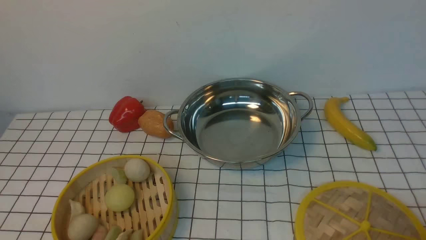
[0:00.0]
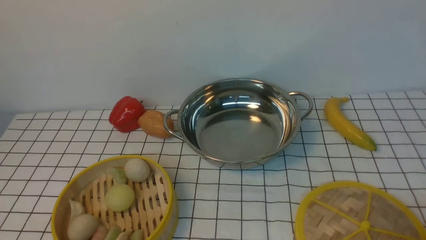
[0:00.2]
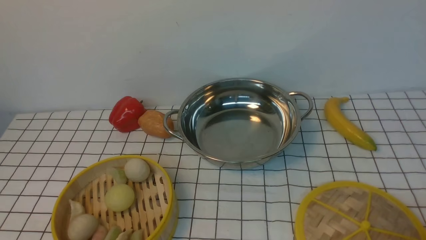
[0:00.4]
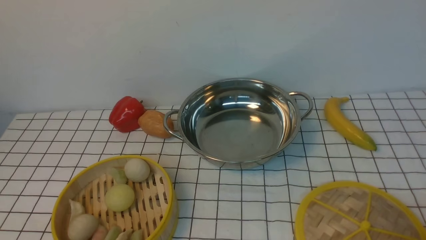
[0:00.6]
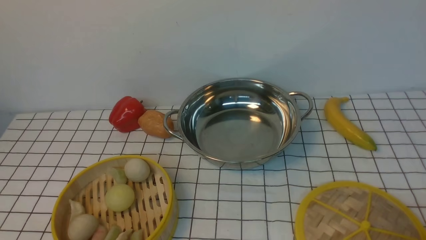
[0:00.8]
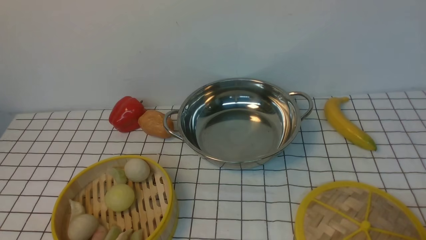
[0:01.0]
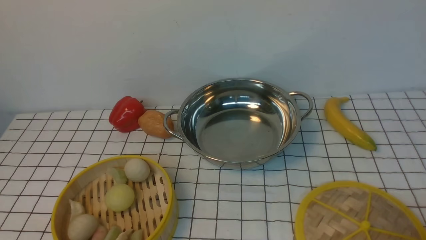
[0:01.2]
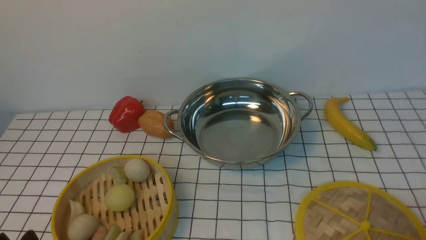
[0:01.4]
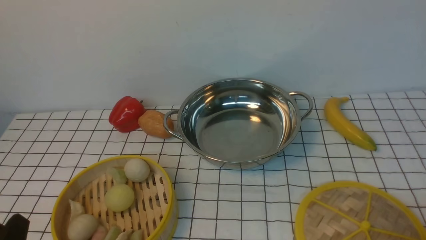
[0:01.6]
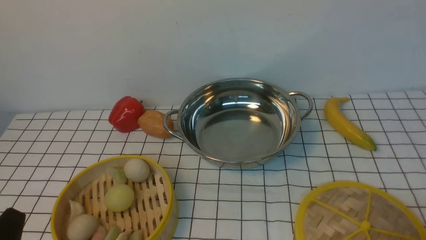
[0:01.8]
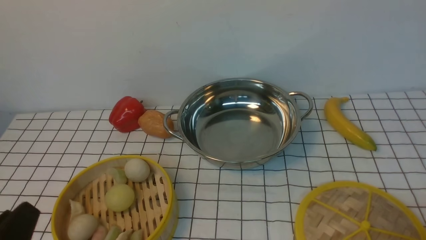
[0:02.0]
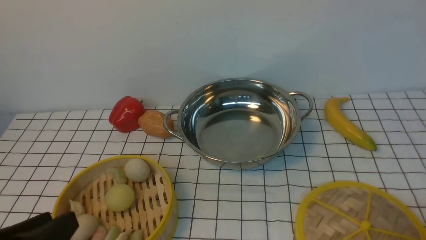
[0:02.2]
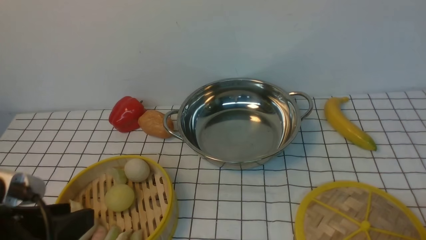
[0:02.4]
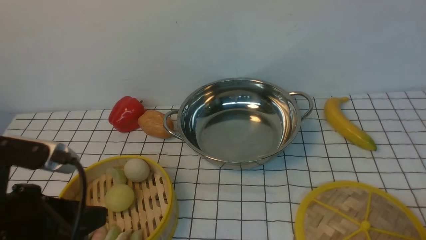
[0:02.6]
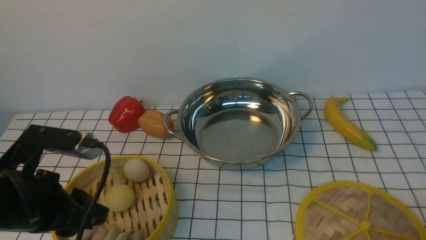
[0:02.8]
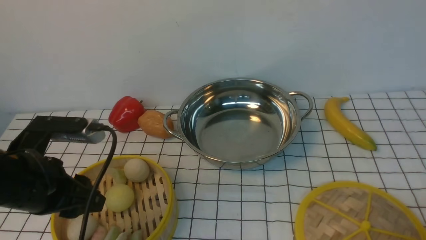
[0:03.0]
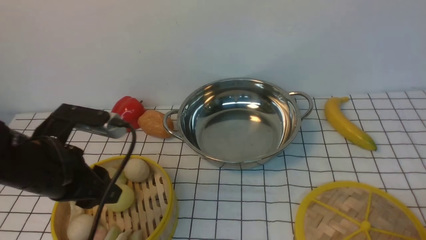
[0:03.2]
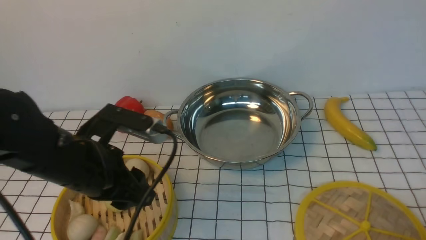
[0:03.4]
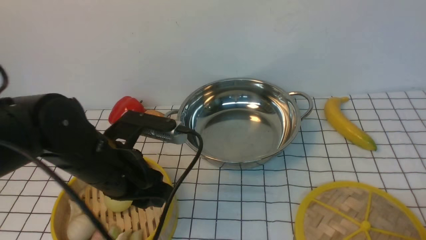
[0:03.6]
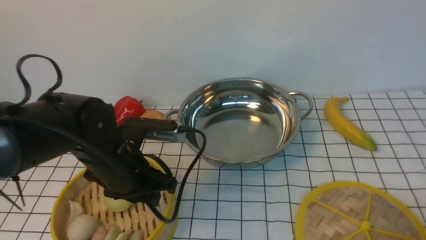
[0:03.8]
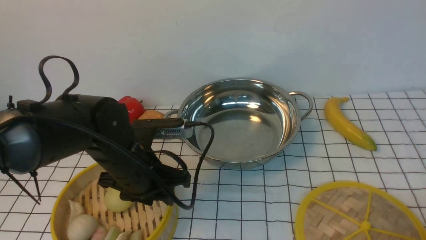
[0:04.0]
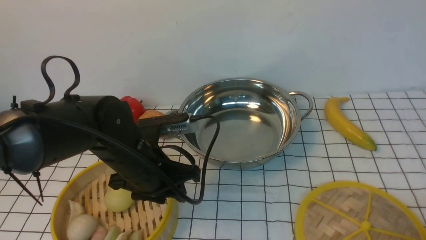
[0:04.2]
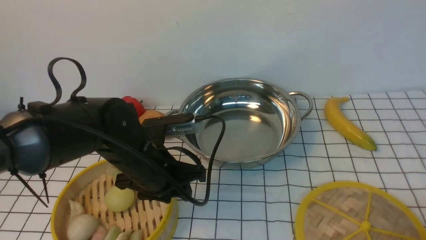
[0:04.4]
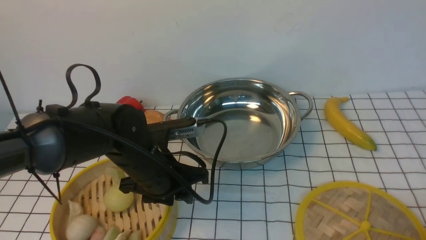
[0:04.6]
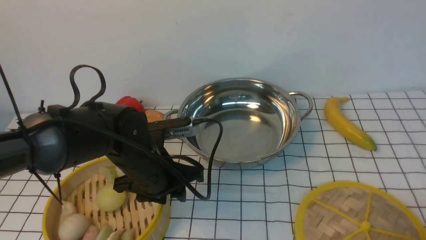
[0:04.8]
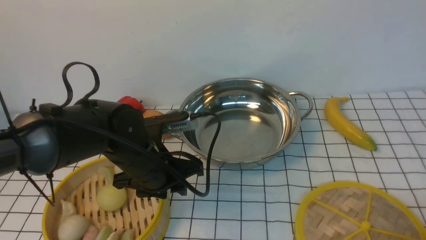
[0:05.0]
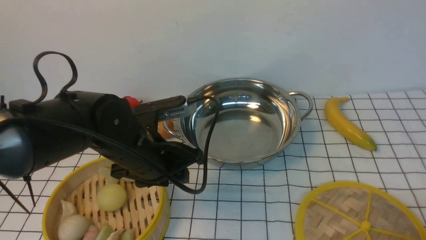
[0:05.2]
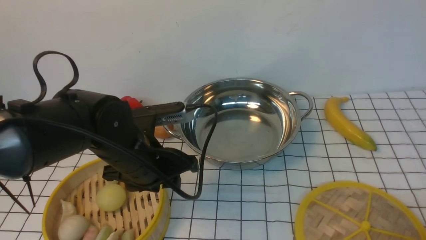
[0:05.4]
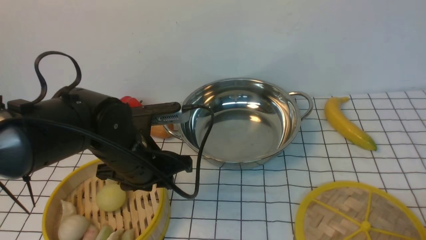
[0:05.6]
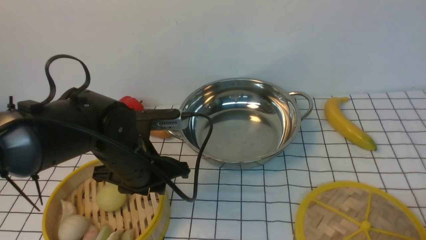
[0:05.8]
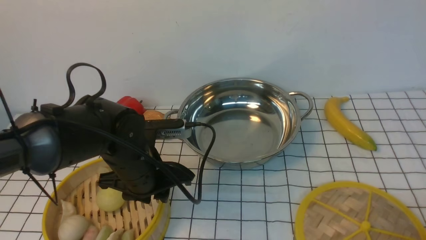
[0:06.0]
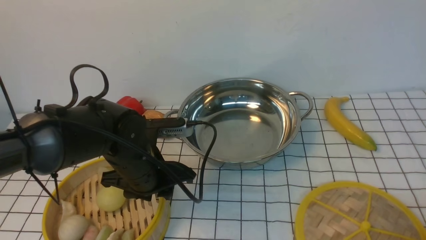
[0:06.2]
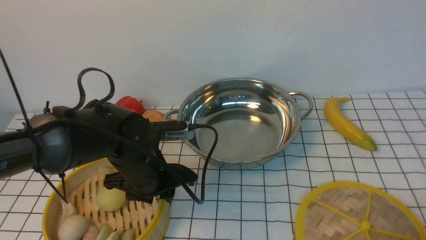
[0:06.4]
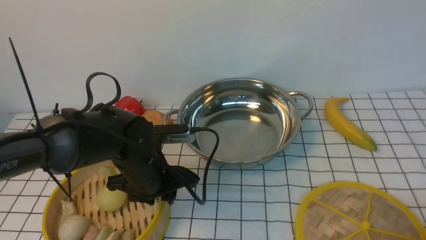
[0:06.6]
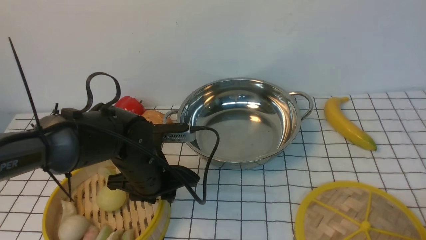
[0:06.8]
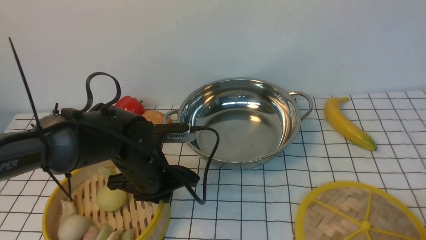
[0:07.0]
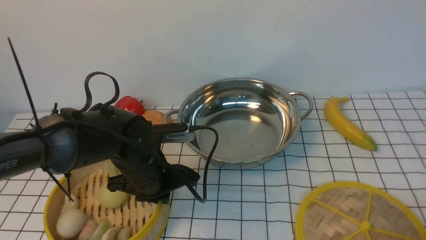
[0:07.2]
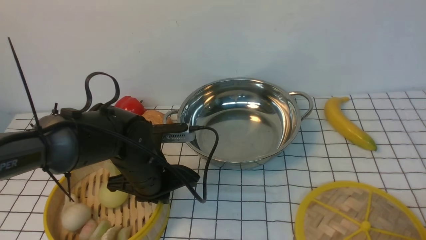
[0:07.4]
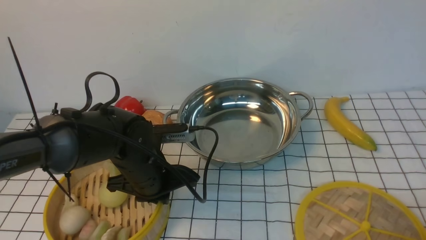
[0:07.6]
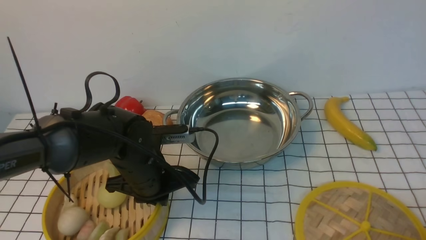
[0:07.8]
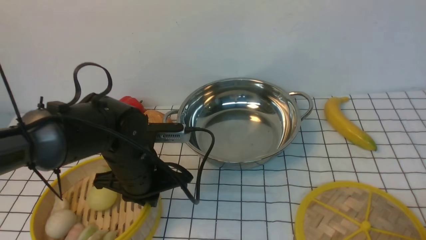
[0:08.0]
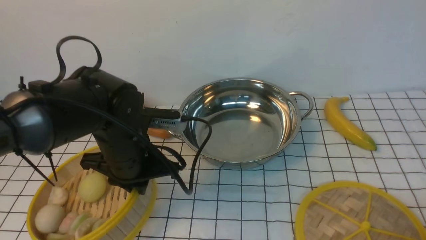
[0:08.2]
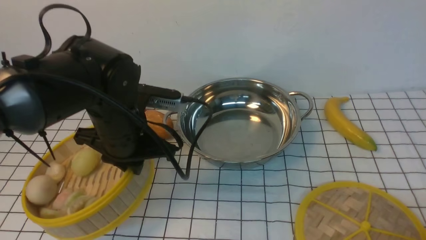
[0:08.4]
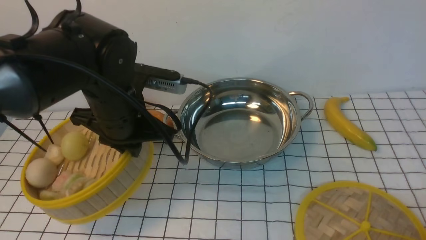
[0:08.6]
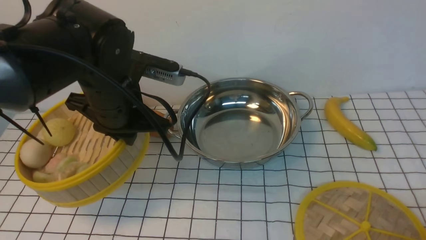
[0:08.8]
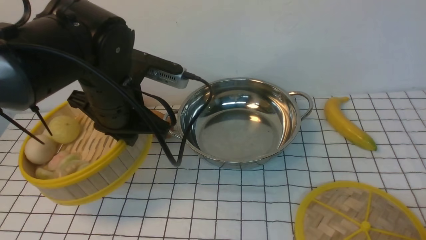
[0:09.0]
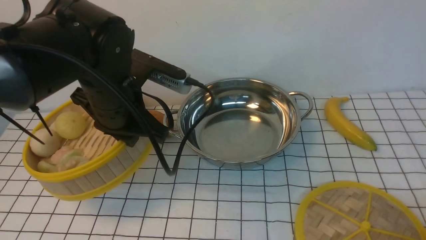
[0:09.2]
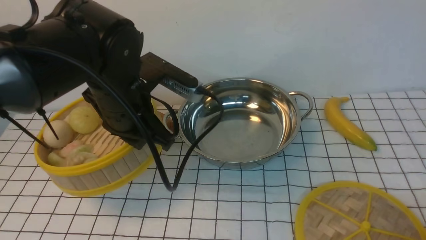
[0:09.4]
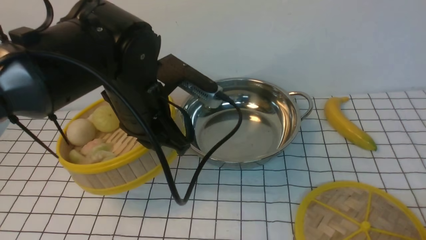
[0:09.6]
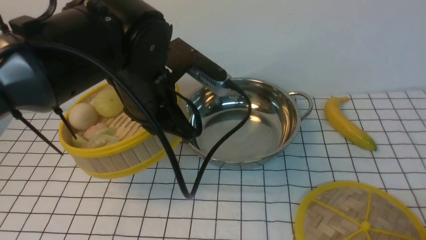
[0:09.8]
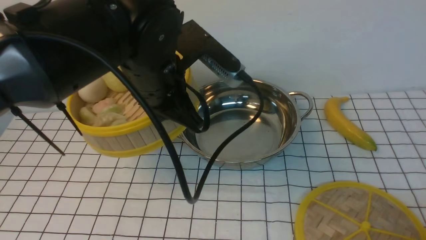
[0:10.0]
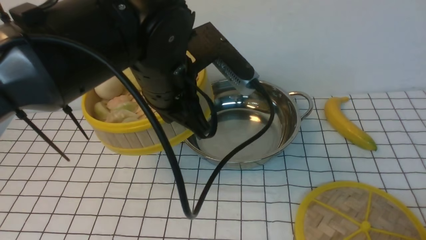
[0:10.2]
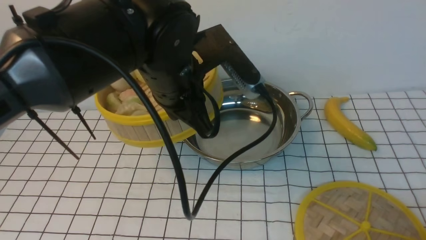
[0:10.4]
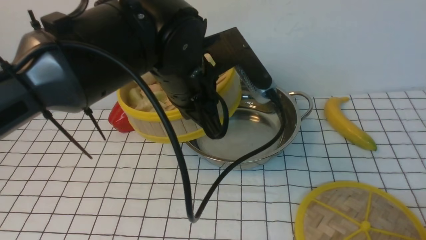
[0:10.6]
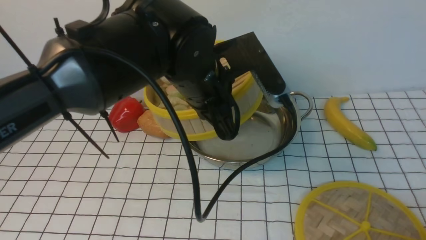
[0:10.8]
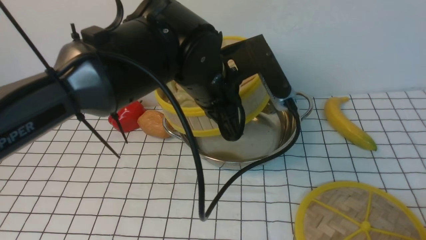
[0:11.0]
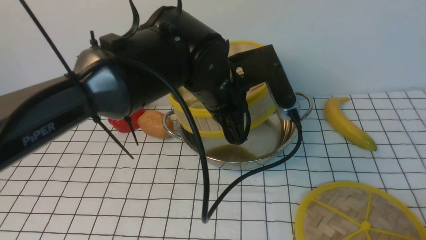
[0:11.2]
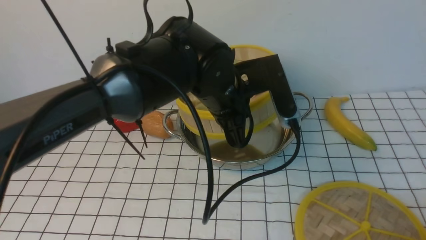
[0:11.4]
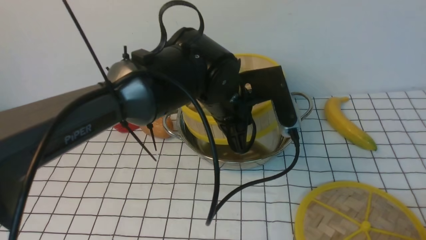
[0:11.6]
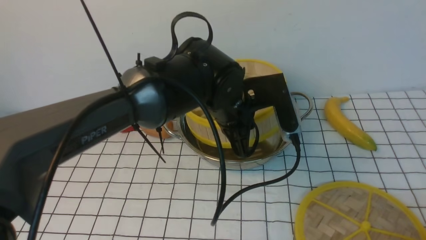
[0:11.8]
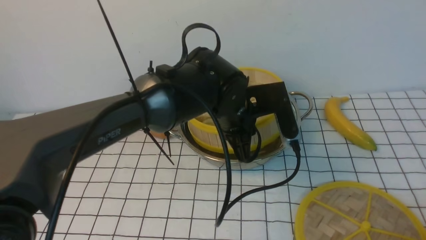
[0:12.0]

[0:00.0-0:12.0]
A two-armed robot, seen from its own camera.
Task of the whole recording: place the steamer in the pot on the white tablecloth, and put the lid on the steamer.
Step, 0:00.0 to 0:08.0: use the left arm to lift the steamer closest to it.
0:01.6 to 0:03.0: The left gripper goes roughly 15 cm forward and upward.
0:03.0 to 0:04.4: The left gripper goes roughly 15 cm to the right, forward and downward.
0:04.4 to 0:06.0: The grippers stay close to where they were, moving slightly.
0:06.0 to 0:07.6: The left gripper closes its fingers.
0:07.6 to 0:09.0: The left gripper moves upward, roughly 15 cm.
0:09.0 to 0:10.4: The left gripper moves to the right, approximately 10 cm.
0:10.4 to 0:12.0: The left gripper goes some 15 cm downward, to the right and forward.

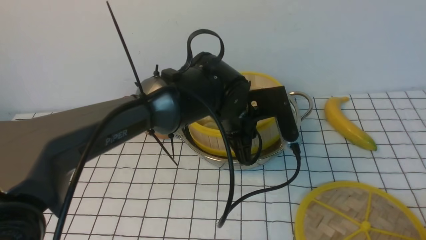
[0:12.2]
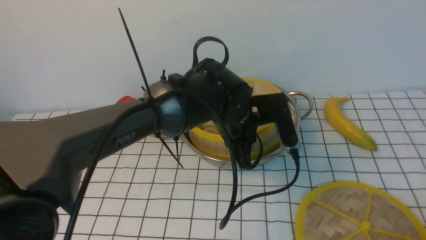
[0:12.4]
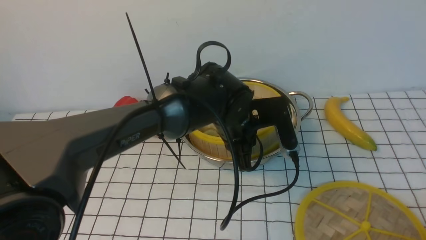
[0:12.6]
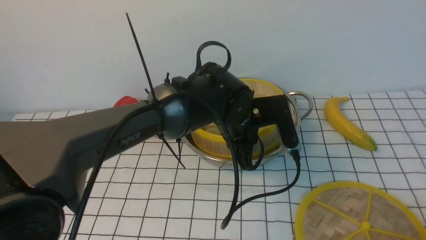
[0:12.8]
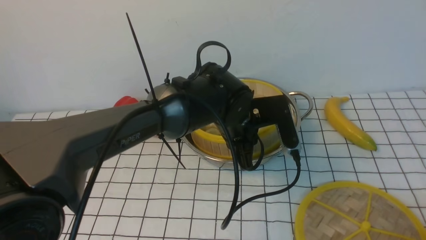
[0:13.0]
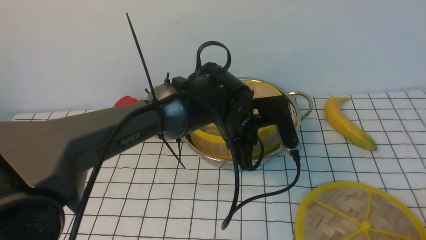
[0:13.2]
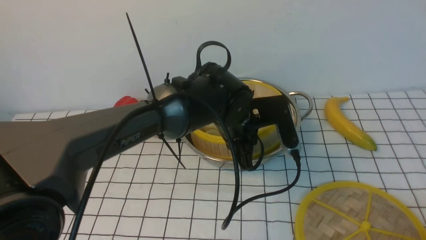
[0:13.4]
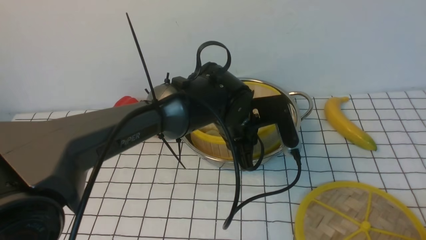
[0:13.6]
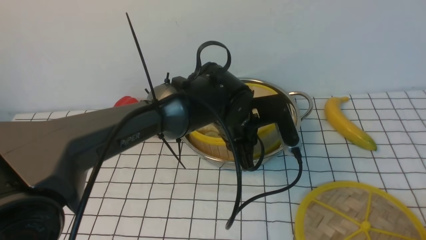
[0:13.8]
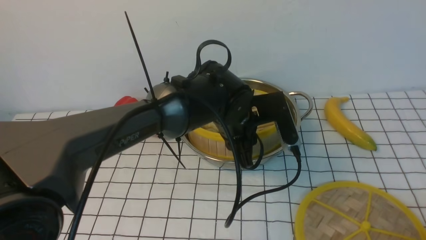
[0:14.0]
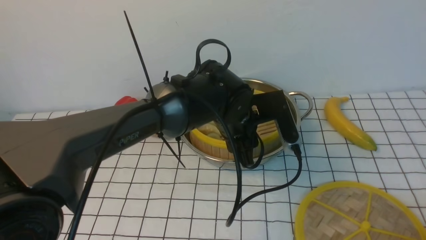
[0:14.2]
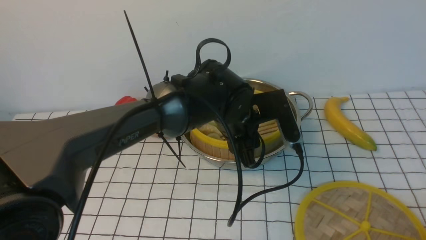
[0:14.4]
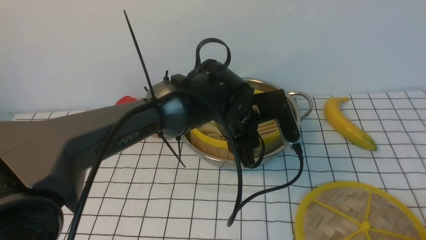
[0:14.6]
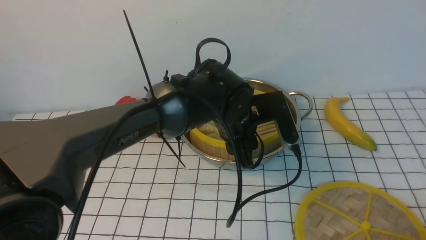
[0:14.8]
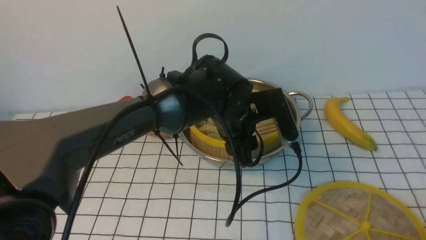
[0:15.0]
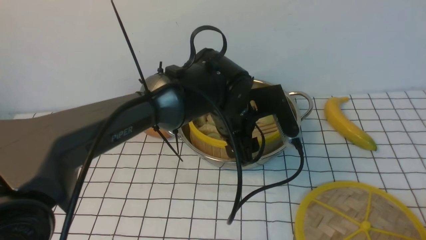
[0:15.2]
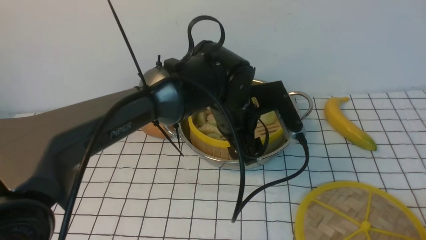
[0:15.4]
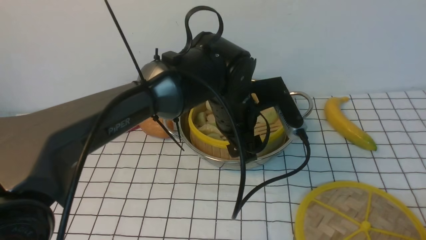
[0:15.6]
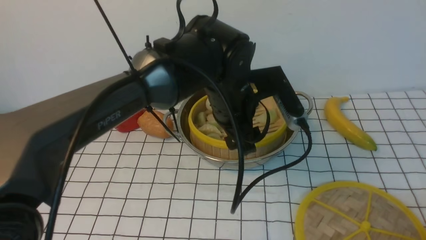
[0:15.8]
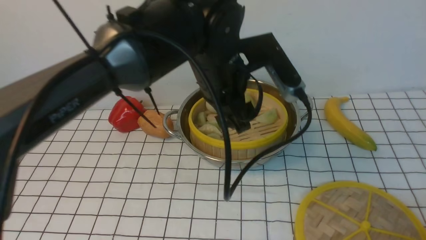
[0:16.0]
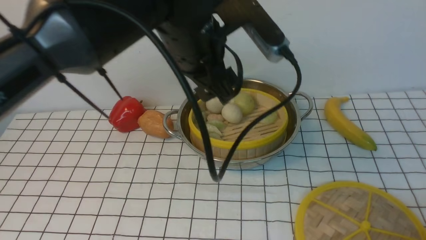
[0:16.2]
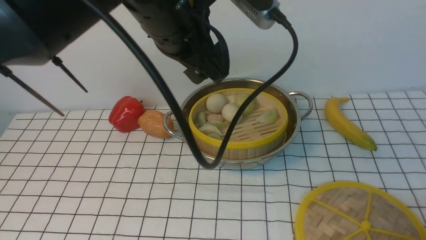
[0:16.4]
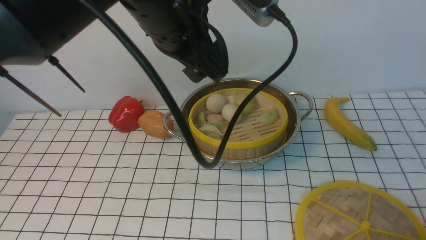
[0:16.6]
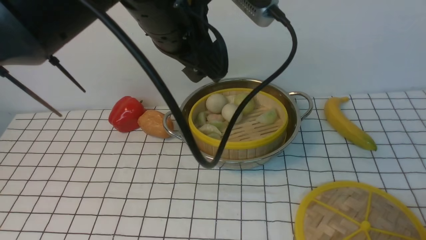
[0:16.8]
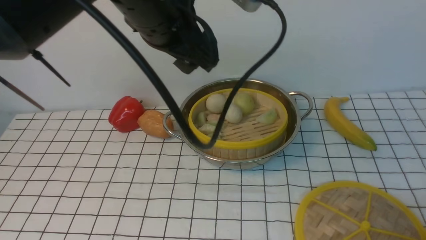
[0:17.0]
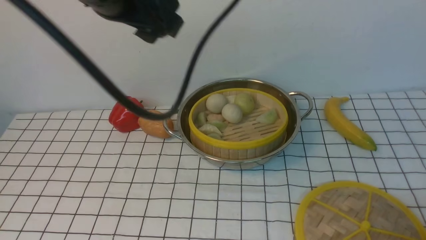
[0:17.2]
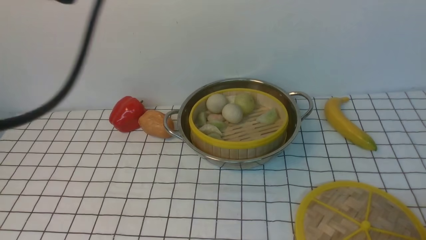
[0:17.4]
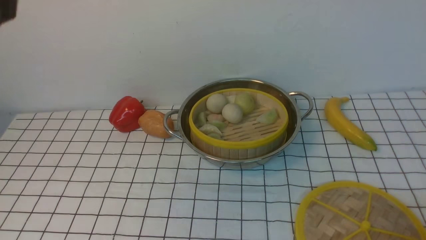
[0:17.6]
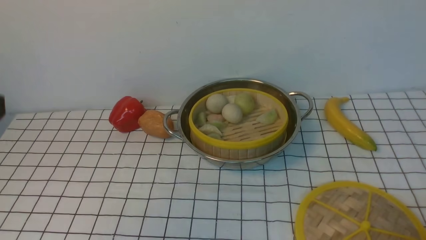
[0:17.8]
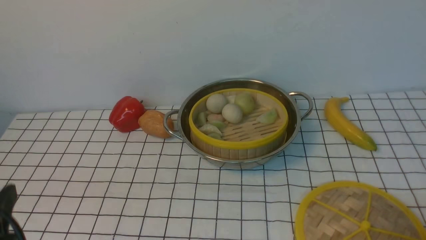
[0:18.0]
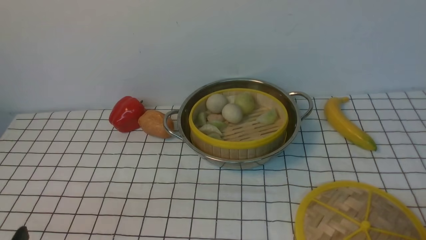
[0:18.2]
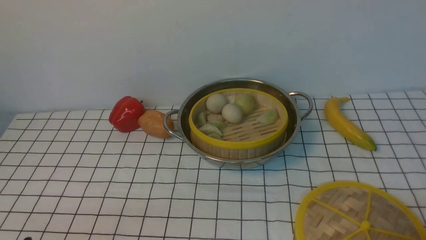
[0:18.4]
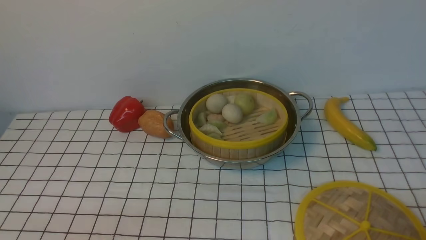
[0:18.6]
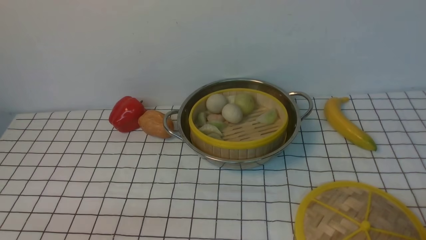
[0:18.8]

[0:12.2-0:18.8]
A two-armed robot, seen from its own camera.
Task of the whole recording: place the steamer in the pot on the white tablecloth, and put the lid on the steamer.
Step, 0:12.2 to 0:15.2: use the left arm to put the steamer into the iron steamer pot in the middle.
0:12.2 to 0:13.8: The grippers make only small movements.
0:13.8 to 0:15.4: The left gripper opens.
0:15.4 to 0:17.2: The left gripper goes about 25 cm upward and to the left.
0:17.2 to 0:18.8: The left gripper travels downward, backward and to the left by some 40 cm.
